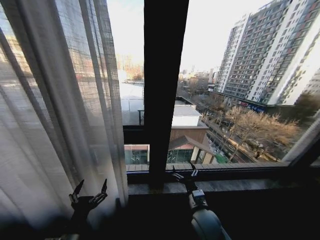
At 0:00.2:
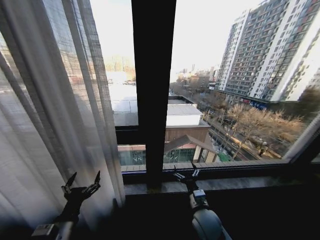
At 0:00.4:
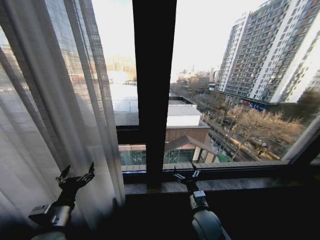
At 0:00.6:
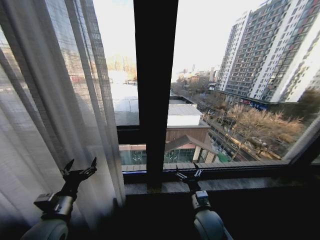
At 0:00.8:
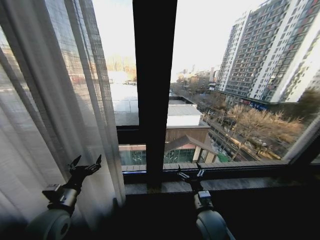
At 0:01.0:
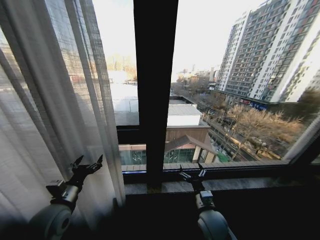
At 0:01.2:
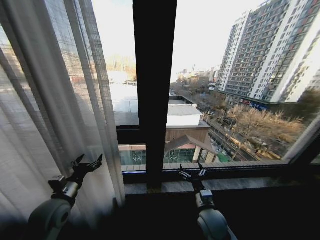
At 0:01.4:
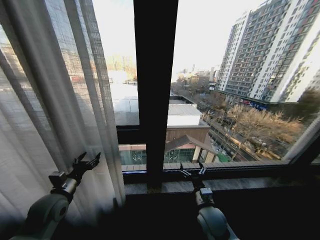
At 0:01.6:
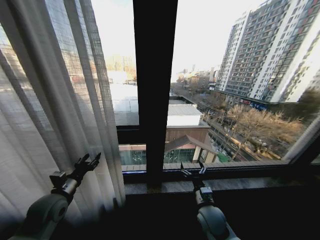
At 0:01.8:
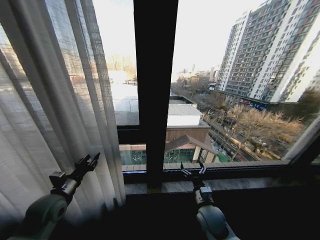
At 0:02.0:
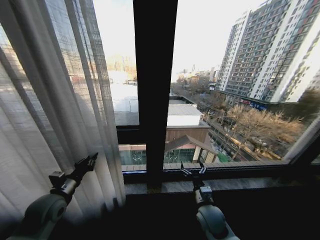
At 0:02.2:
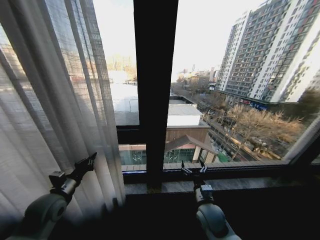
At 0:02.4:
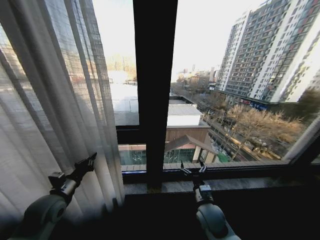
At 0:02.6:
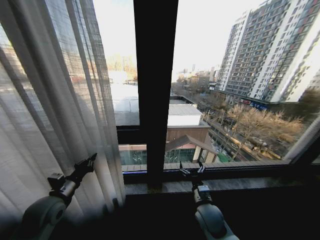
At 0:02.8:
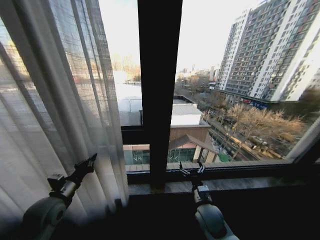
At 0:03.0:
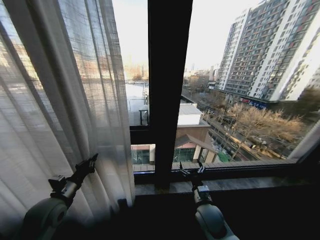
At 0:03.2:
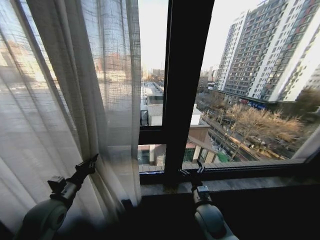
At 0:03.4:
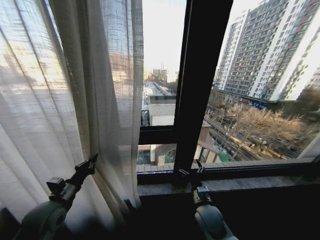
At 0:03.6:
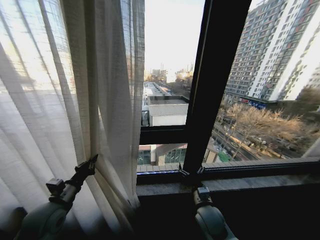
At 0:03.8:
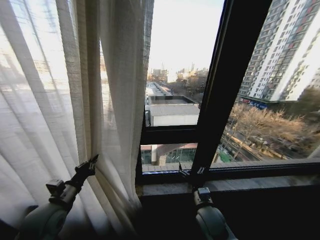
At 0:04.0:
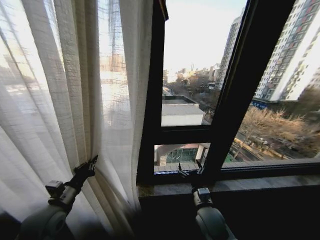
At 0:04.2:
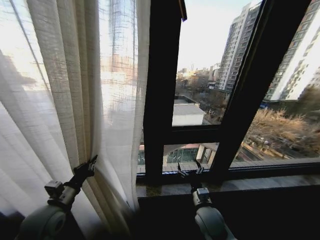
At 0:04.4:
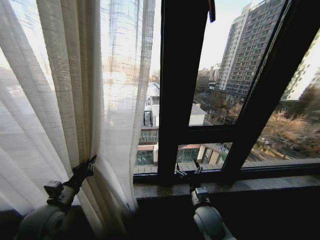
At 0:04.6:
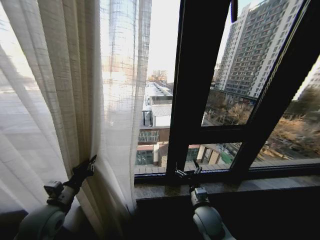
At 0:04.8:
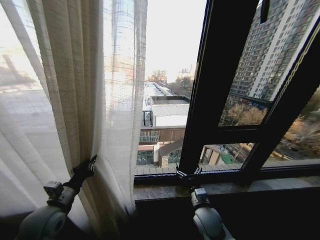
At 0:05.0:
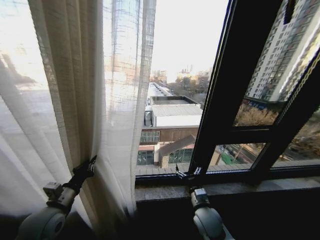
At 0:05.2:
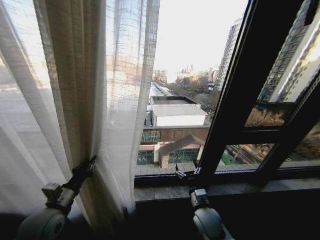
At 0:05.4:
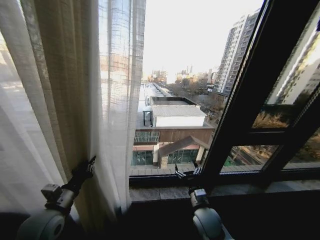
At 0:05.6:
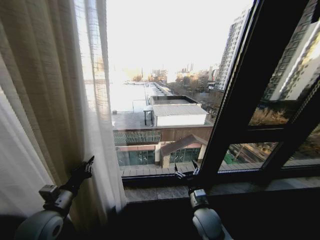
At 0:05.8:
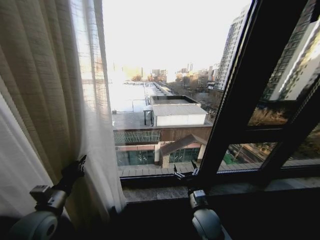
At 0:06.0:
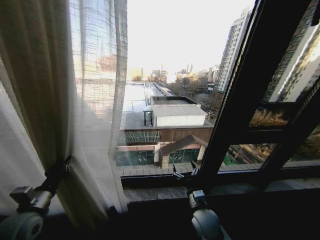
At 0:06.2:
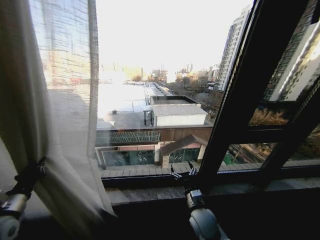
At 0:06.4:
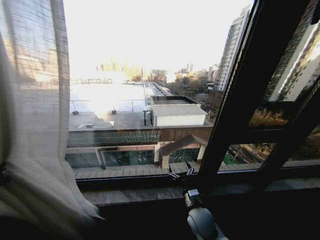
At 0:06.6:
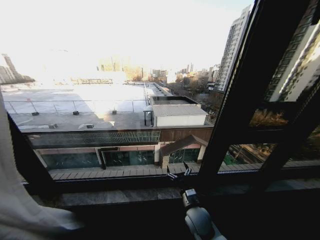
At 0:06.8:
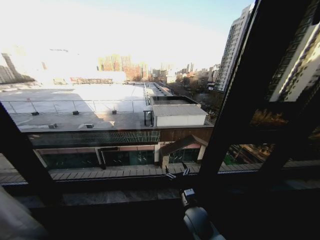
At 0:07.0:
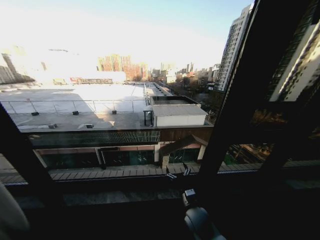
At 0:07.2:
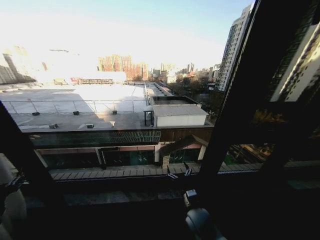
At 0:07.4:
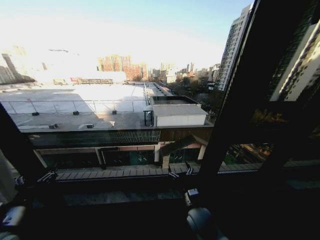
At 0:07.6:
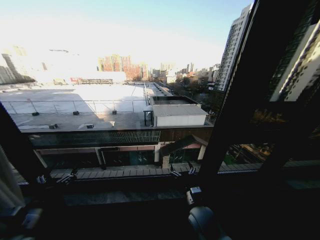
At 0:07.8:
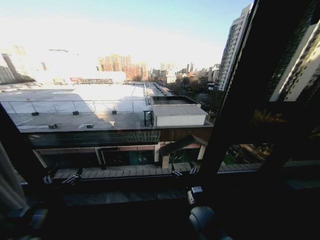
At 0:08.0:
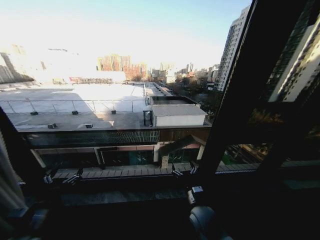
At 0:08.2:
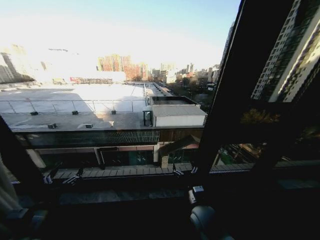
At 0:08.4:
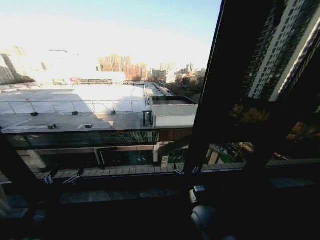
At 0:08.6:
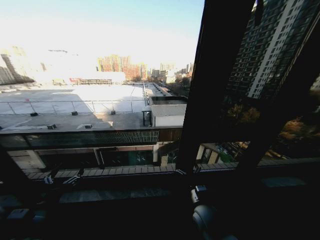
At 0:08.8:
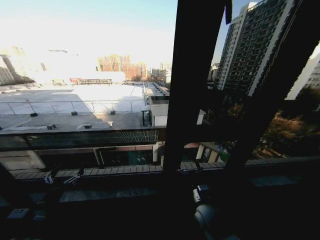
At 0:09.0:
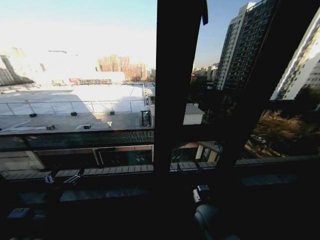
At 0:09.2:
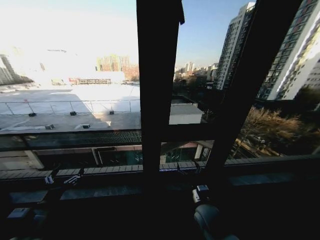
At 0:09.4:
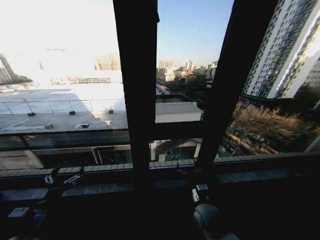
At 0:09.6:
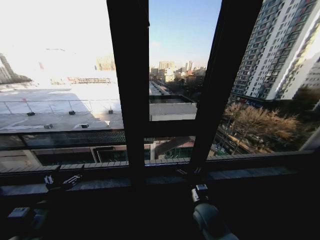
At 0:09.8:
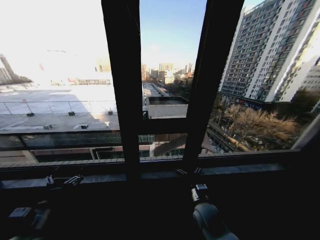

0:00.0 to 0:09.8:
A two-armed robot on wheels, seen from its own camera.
Task of the whole recording: Open the curtains by pulling them apart, changing their state from closed to fully open.
0:00.0 to 0:01.4: The left gripper is displaced forward and to the left by some 20 cm.
0:01.4 to 0:02.8: The left gripper closes.
0:05.6 to 0:07.0: The left gripper goes approximately 20 cm to the left, and opens.
0:07.0 to 0:08.4: The left gripper shifts roughly 15 cm to the right, and opens.
